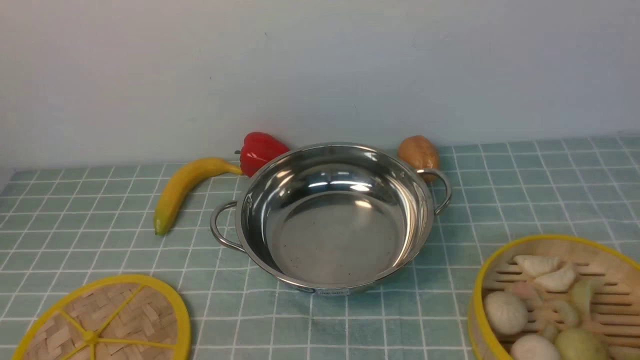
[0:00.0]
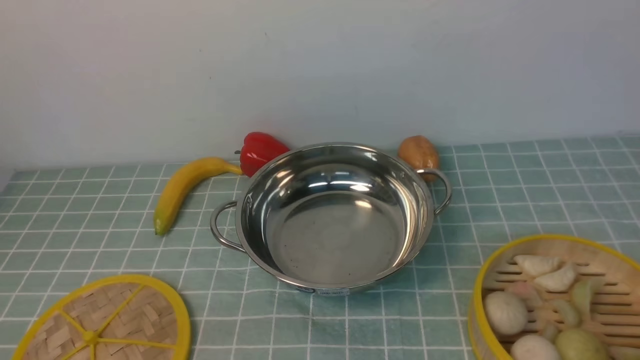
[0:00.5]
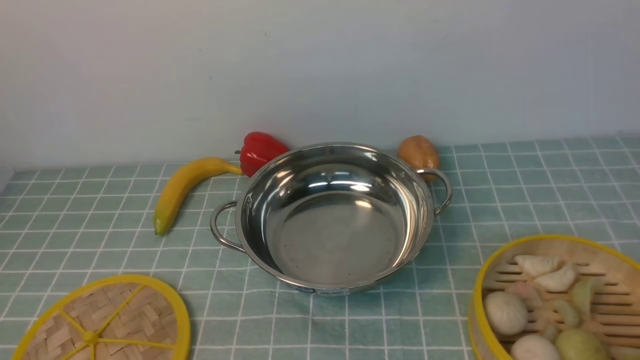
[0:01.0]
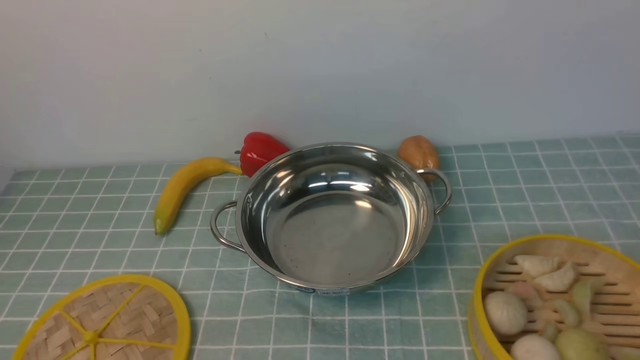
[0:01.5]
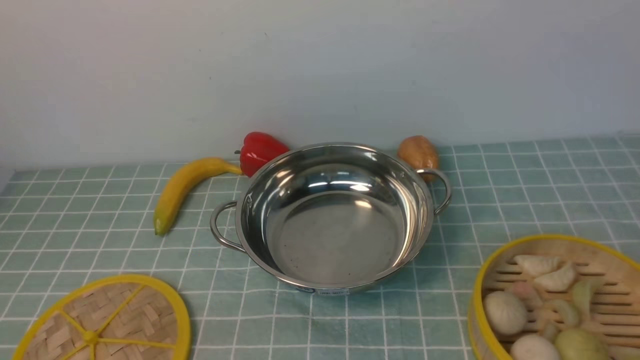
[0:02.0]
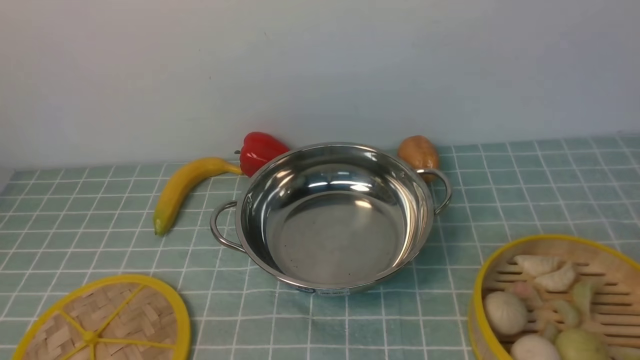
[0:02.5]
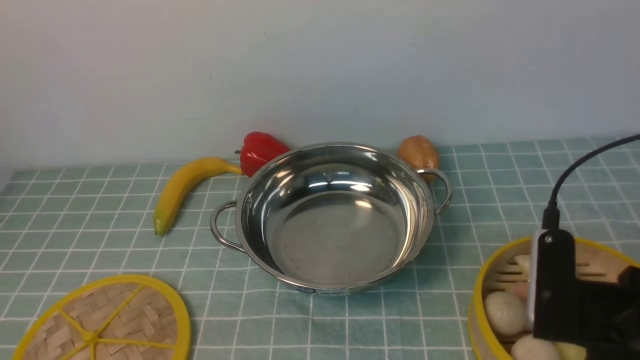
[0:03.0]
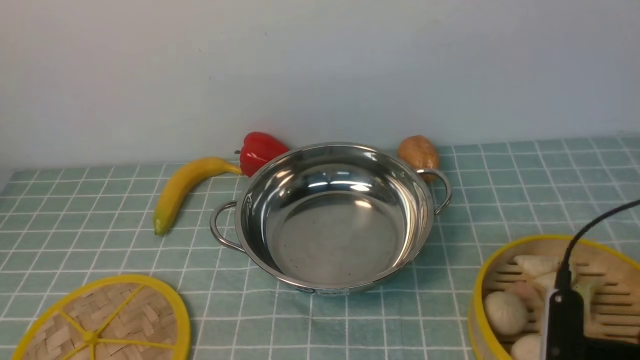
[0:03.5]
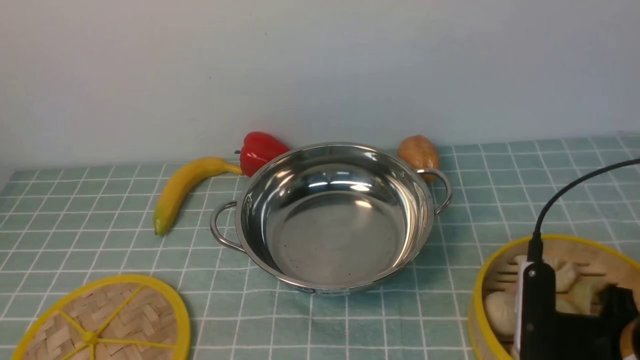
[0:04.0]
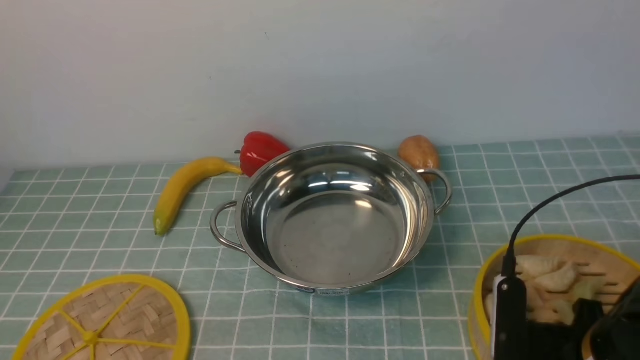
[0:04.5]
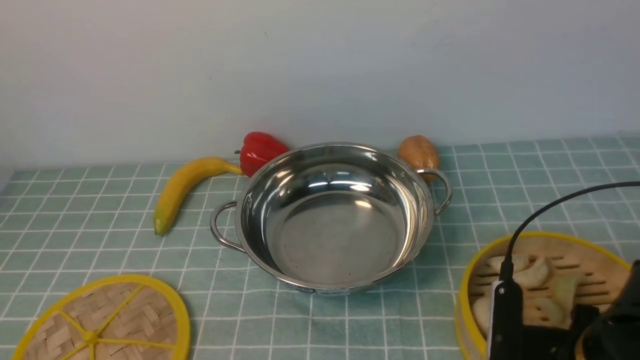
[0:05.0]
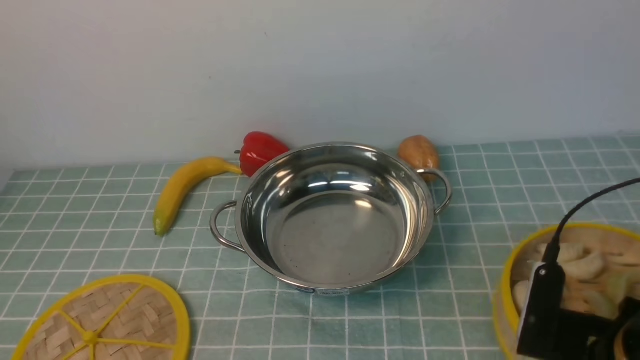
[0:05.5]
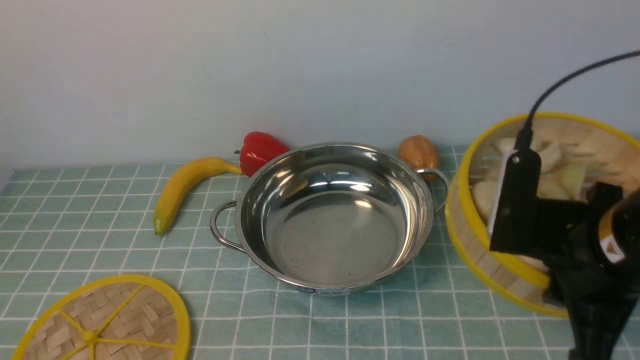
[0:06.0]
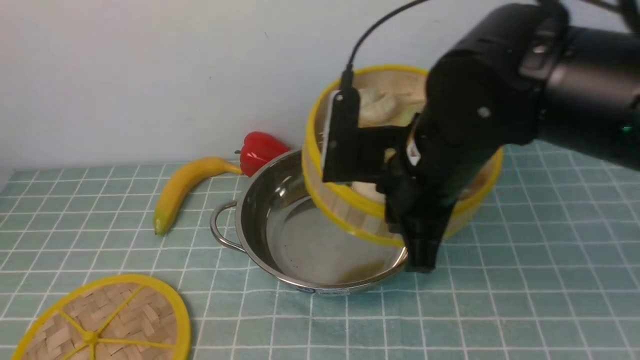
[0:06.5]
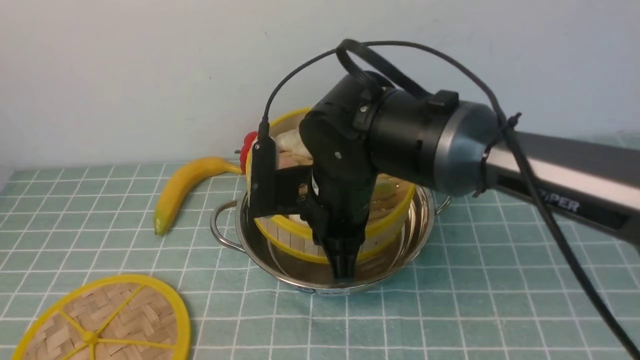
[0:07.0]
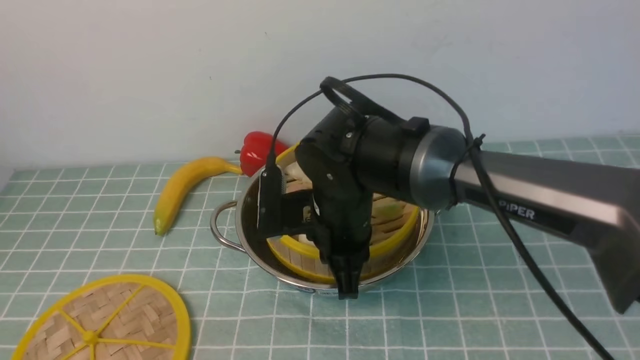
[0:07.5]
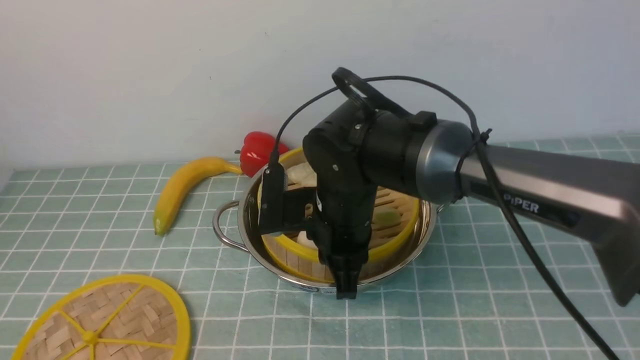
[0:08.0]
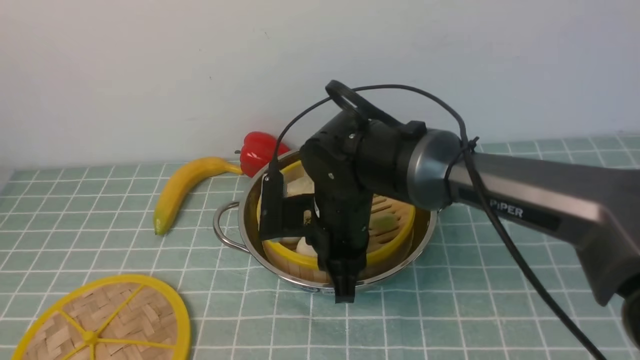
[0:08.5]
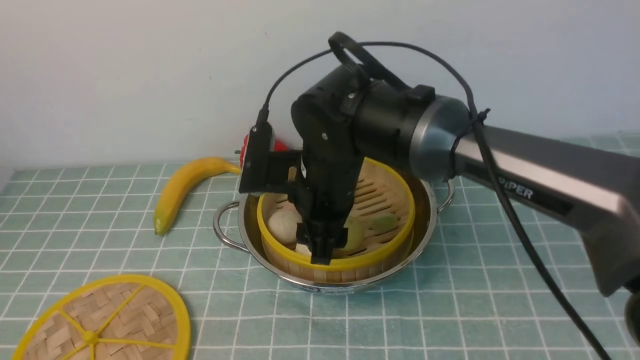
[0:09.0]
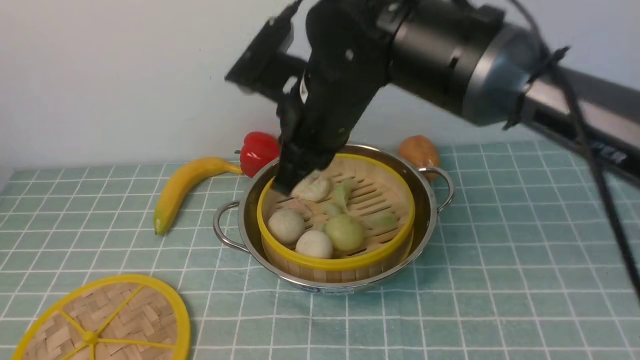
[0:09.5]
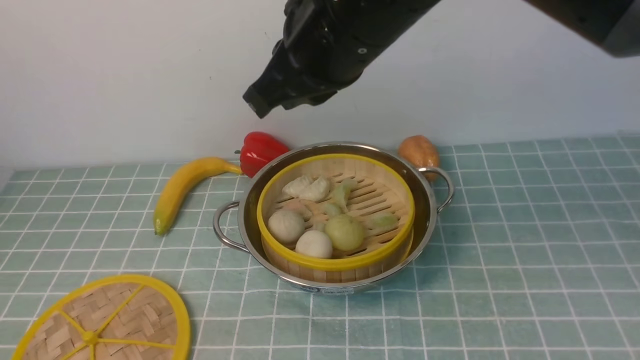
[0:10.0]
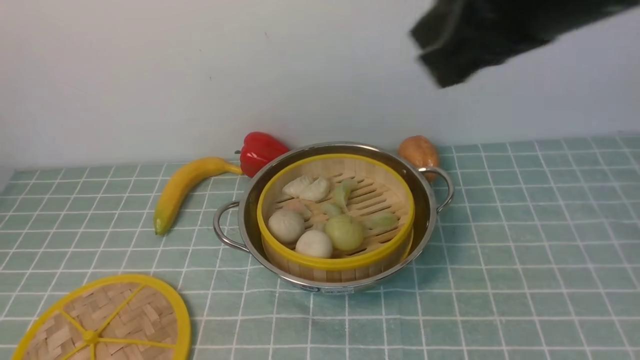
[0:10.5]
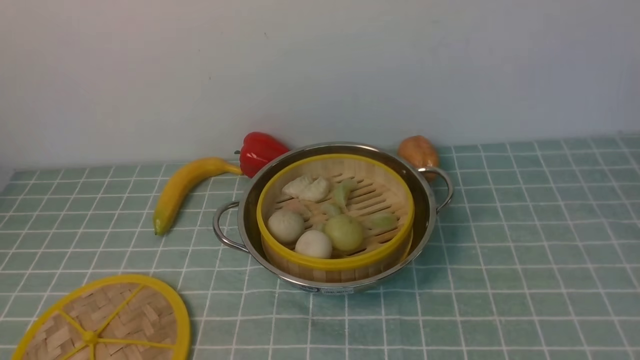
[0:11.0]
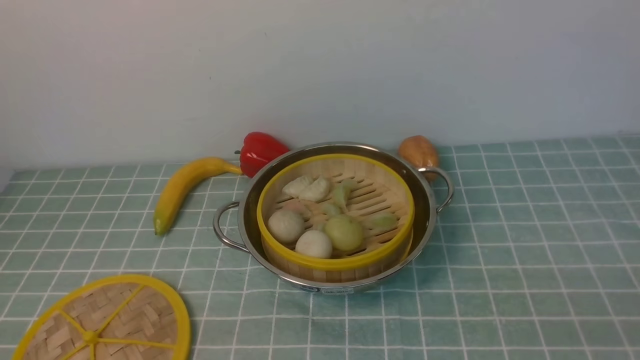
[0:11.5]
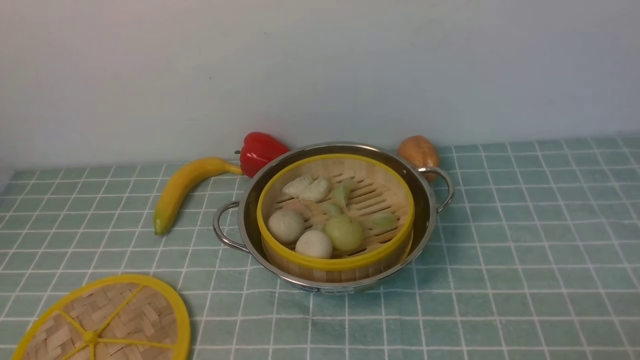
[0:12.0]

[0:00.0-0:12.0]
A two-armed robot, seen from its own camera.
Task of the whole recording: place the steamer in the pot on the blue tablecloth, and put the lid on the steamer.
Step, 0:00.0 to 0:05.5: use the right arm to lift the steamer closest to it.
Step, 0:06.0 to 0:09.0: use the right arm to put the steamer into the iron steamer pot in the middle.
0:02.0 to 0:04.0: The right gripper travels downward, forward and to the left by some 20 cm.
0:04.0 to 0:06.0: The right gripper is displaced upward by some 10 cm, and closes.
0:06.0 to 0:08.0: The right gripper is displaced to the left, forward and downward by approximately 25 cm.
0:08.0 to 0:10.0: The right gripper travels upward by roughly 20 cm, and opens, then closes once more.
0:10.0 to 0:12.0: The right gripper travels to the right, downward and backward by roughly 40 cm, and opens up.

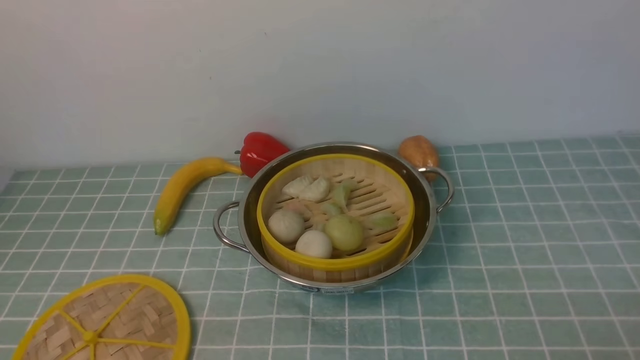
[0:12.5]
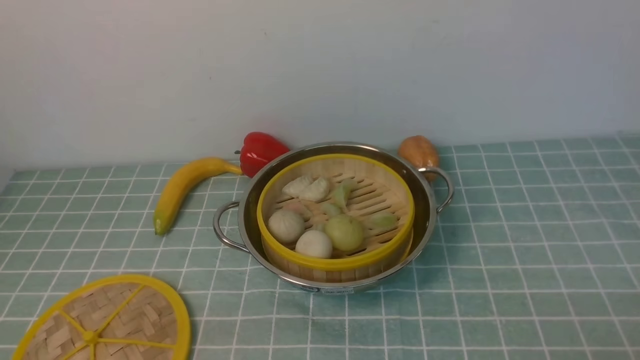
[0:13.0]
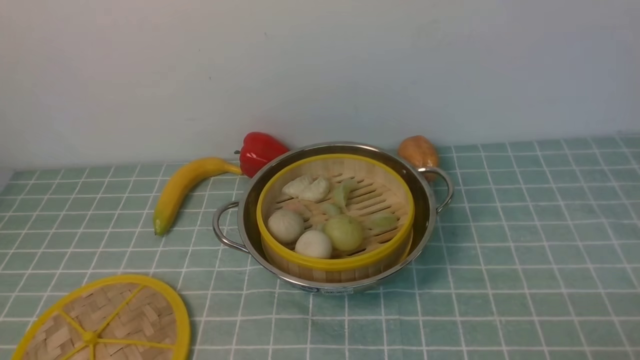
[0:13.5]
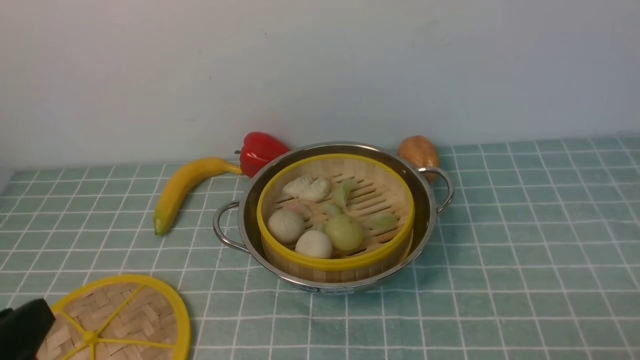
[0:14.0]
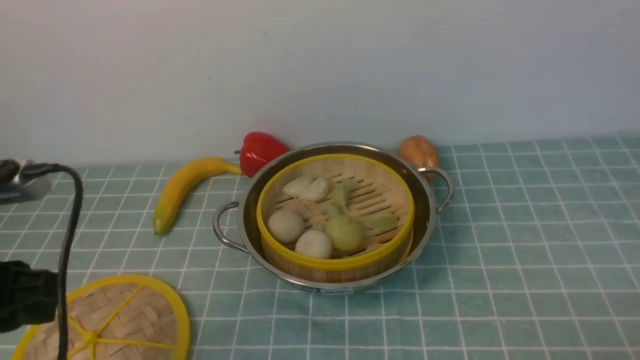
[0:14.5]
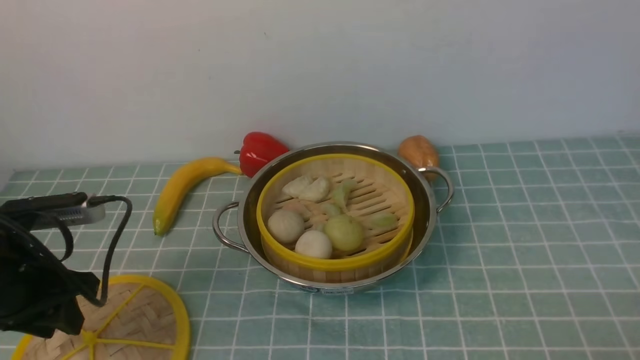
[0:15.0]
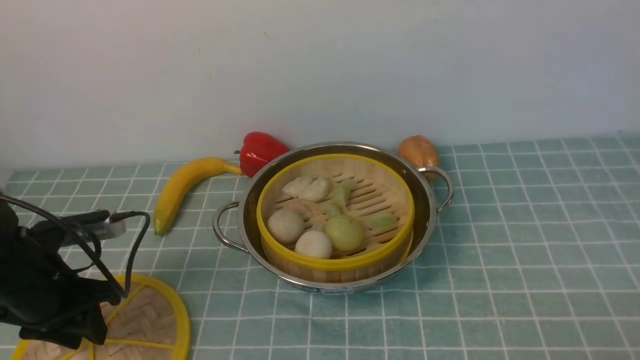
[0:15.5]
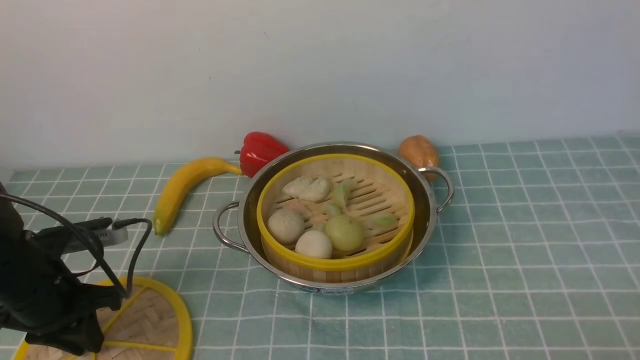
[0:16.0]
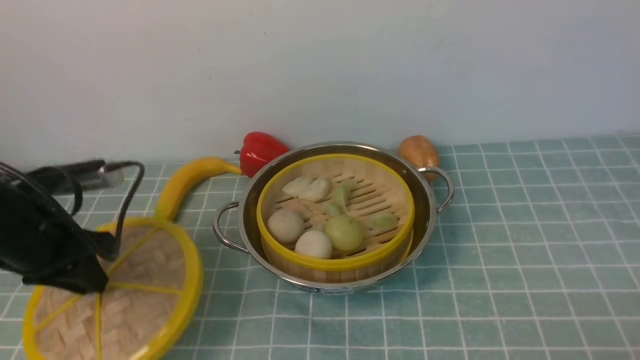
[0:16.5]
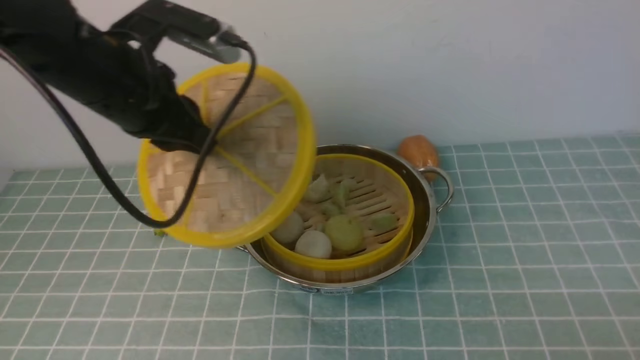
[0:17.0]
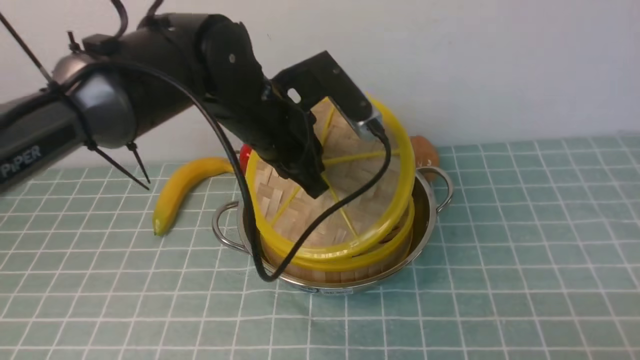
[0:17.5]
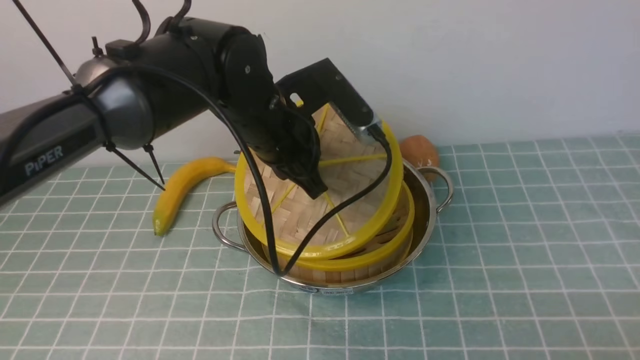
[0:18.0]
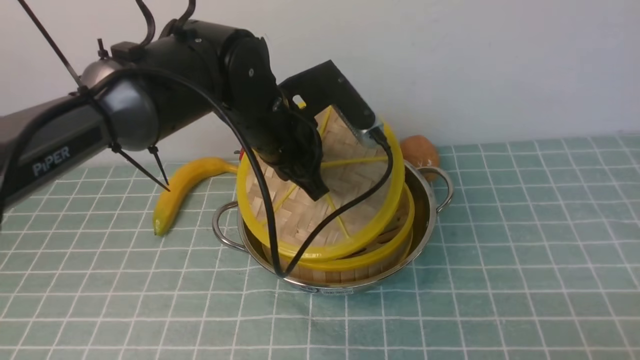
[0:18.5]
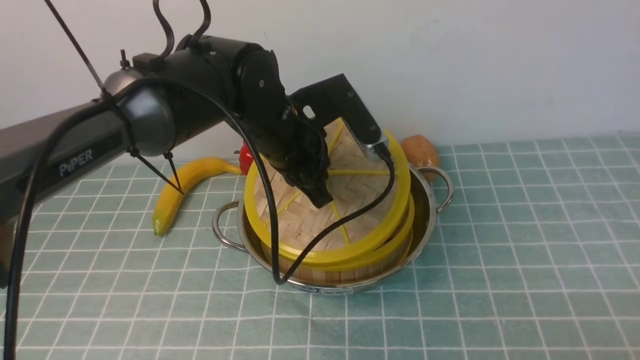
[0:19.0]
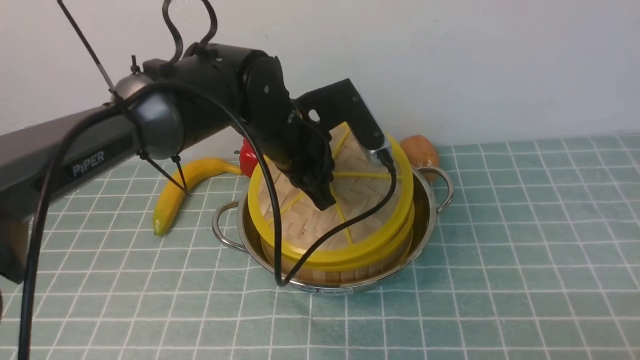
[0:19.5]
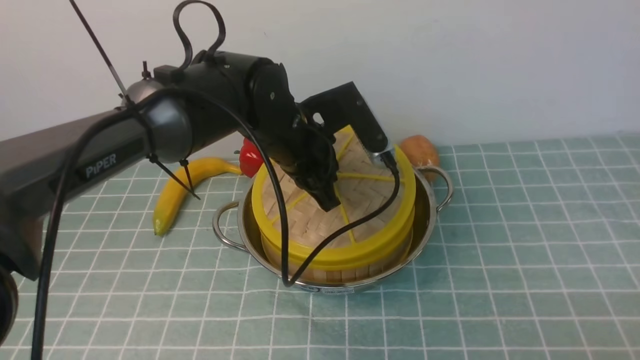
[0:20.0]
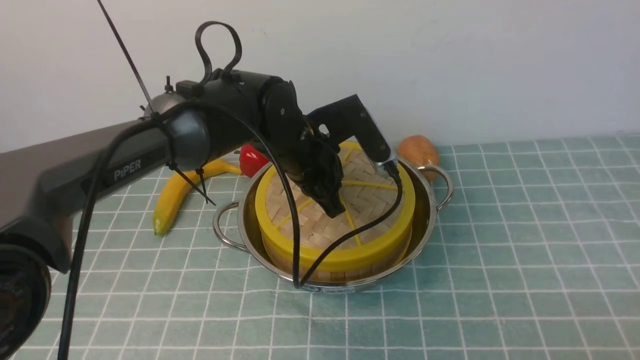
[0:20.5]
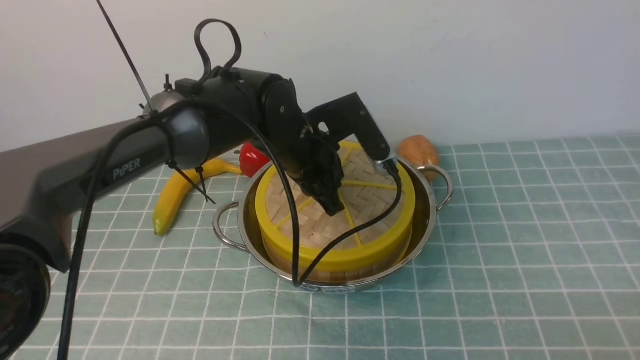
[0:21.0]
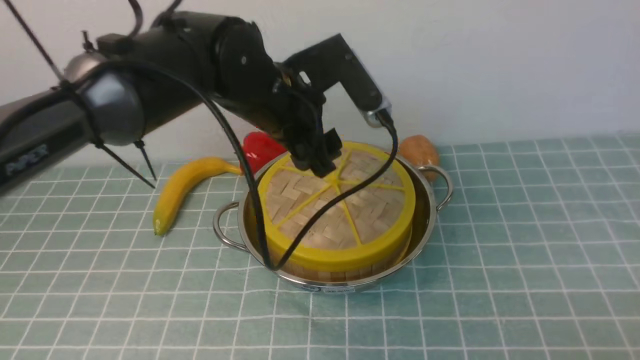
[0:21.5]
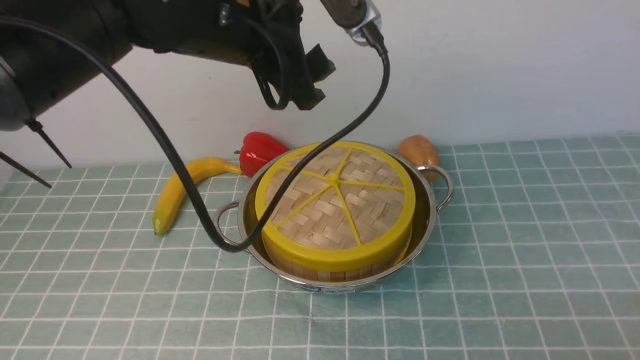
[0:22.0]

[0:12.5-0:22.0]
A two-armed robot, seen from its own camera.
Task of the whole recording: place the steamer in the pot on the blue tablecloth, and put the lid on the steamer.
Step, 0:12.5 to 0:16.0: use the left arm to lift the lid of the steamer.
Step, 0:16.5 to 0:21.5: use the left arm to place the steamer lid on the steamer.
0:12.5 to 0:14.5: The left gripper is displaced forward and upward by roughly 15 cm.
0:14.5 to 0:16.5: The left gripper is displaced forward and downward by about 15 cm.
0:16.5 to 0:18.0: The left gripper shifts some 25 cm to the right.
0:20.0 to 0:22.0: The left gripper is displaced upward by approximately 15 cm, and opens.
